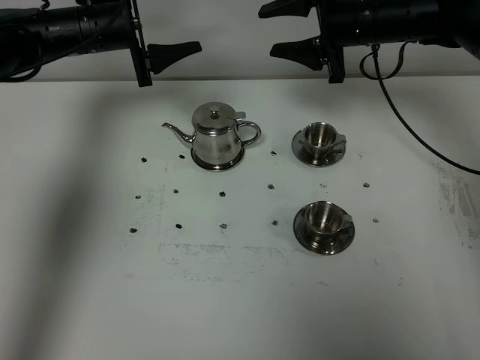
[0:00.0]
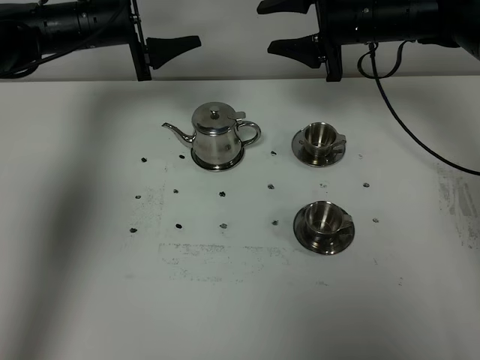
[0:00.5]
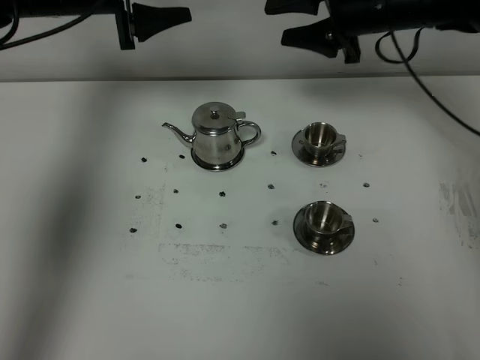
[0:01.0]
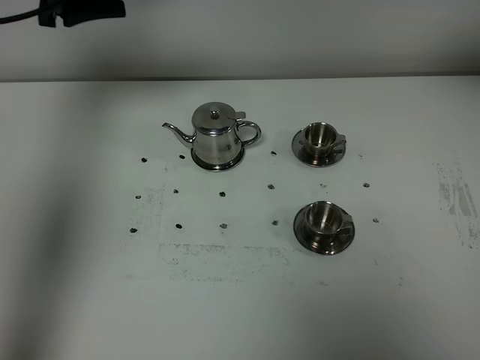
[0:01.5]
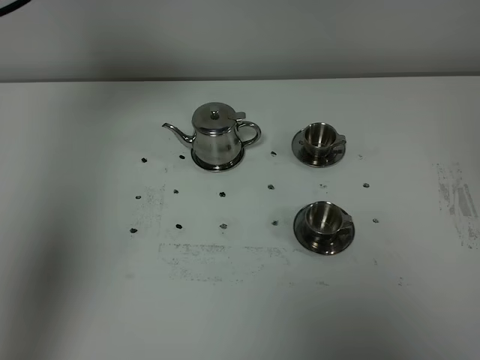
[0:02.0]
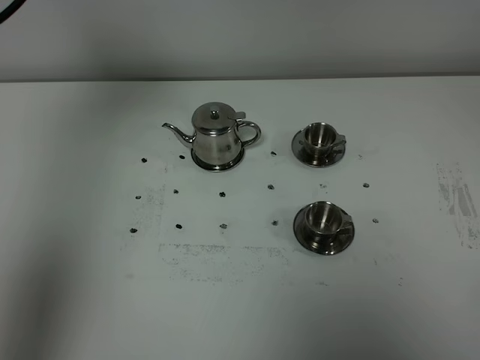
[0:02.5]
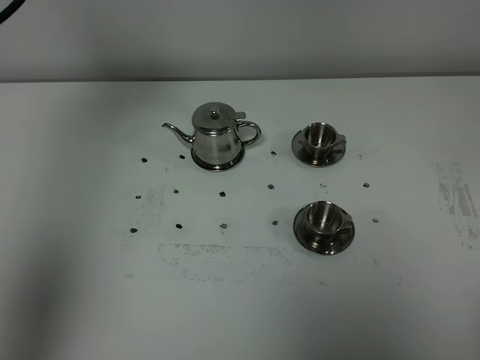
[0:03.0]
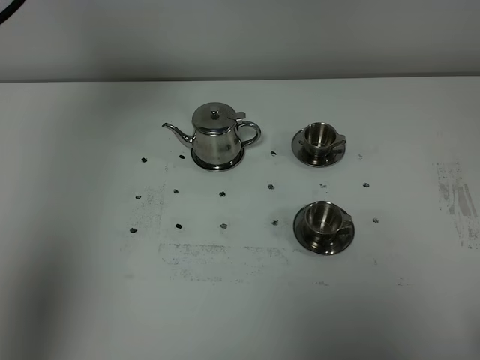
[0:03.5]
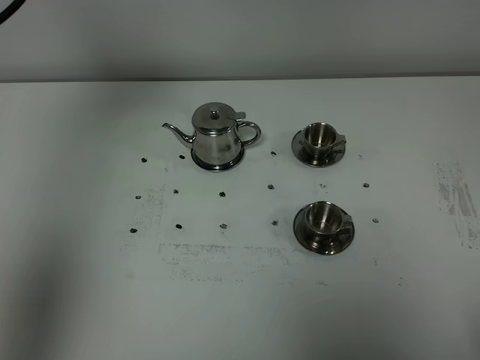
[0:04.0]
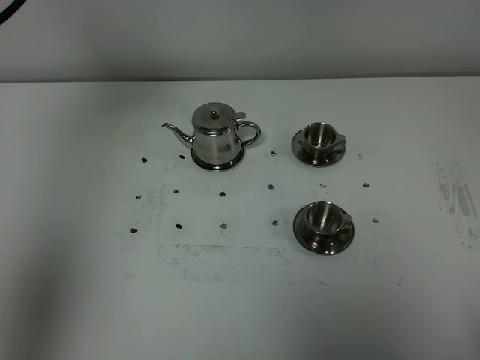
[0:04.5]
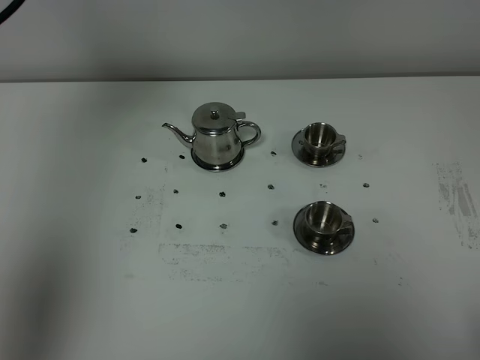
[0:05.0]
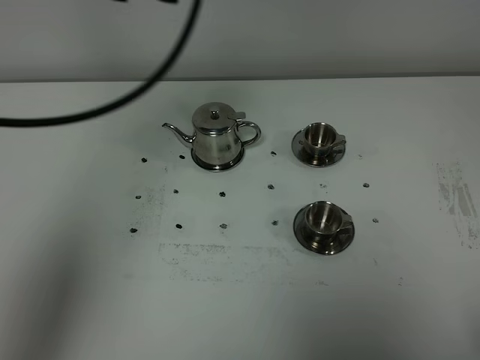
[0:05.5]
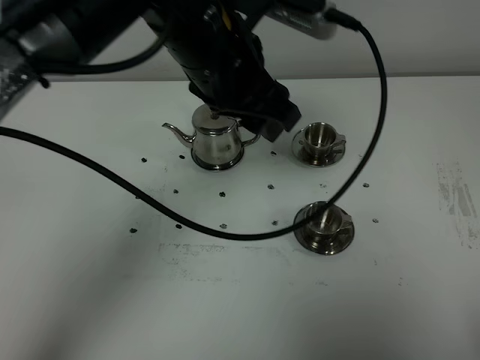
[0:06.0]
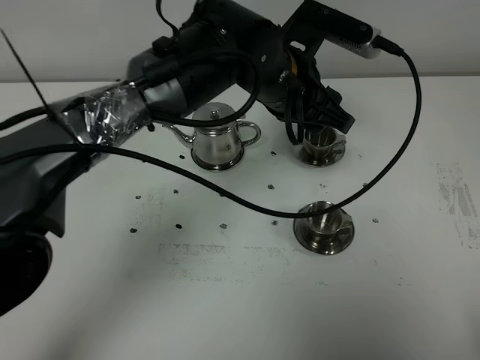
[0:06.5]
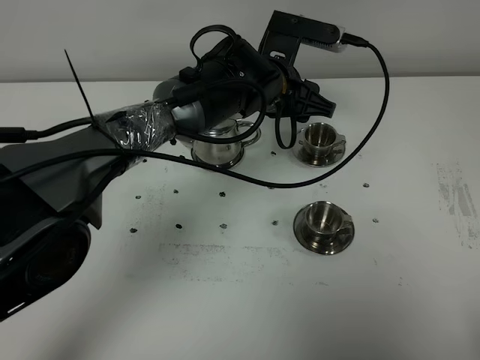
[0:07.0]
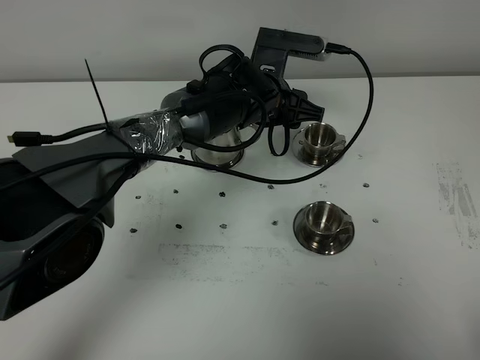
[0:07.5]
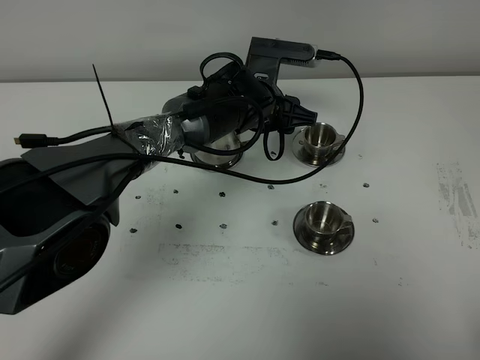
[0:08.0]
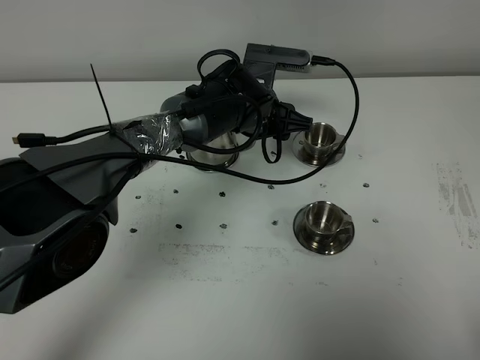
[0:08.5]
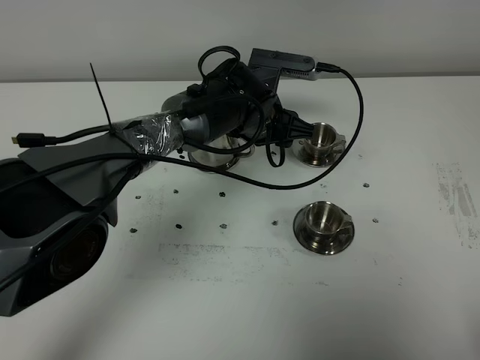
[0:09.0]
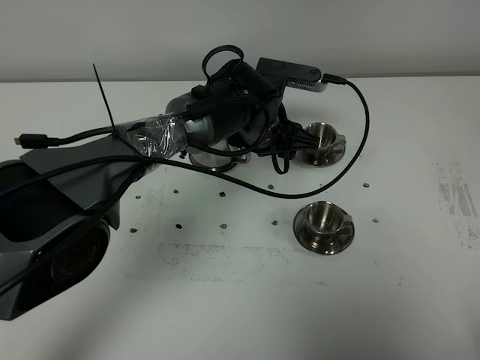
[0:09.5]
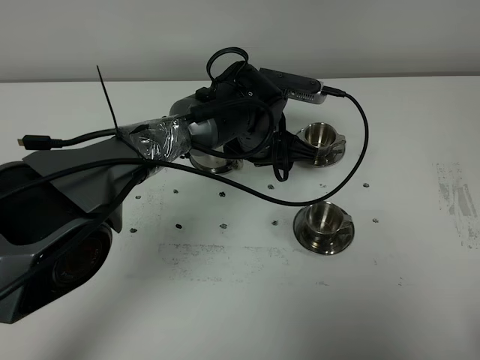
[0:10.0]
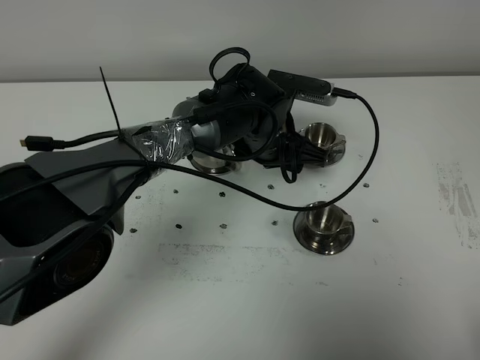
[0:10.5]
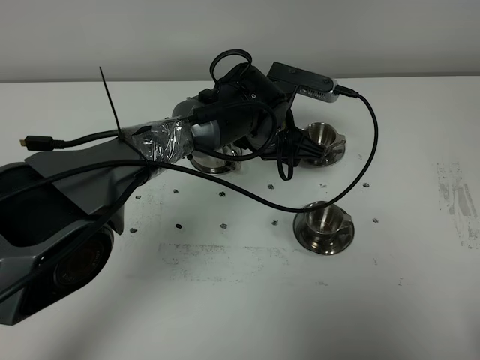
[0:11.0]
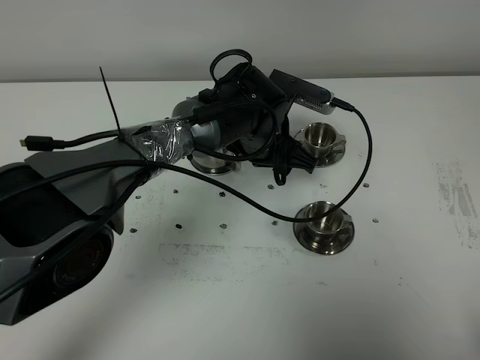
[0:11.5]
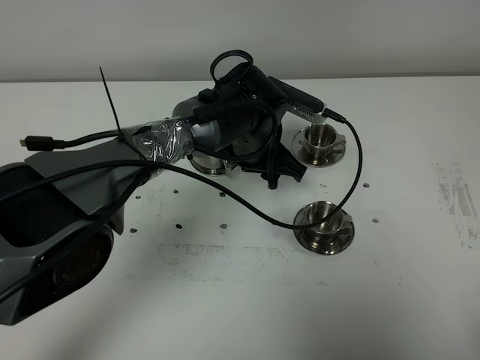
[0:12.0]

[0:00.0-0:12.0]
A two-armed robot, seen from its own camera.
Task of the whole recording: grasp the stainless steel teapot and pour the tea into the two stainless steel teacups one by one, put the stainless steel teapot back in its original place.
0:00.0 to 0:02.0: The left gripper shifts some 25 cm upward and backward. Meanwhile the right gripper travels backward and upward by roughly 50 cm.
0:04.0 to 0:06.0: The left gripper heads to the right and downward, covering roughly 30 cm.
0:06.0 to 0:08.0: The left gripper shifts some 20 cm downward and forward.
0:08.0 to 0:10.0: The grippers move only a little.
0:10.0 to 0:12.0: The grippers make only small movements.

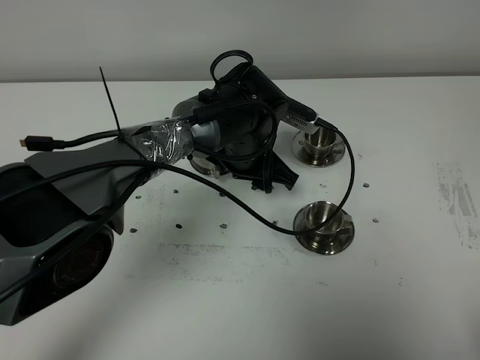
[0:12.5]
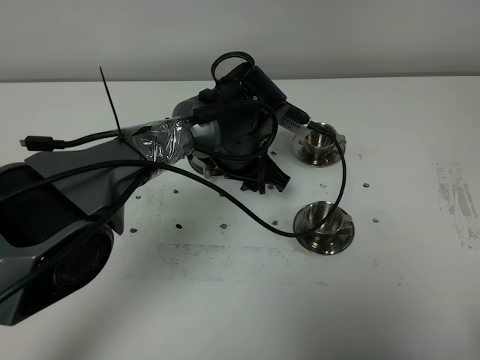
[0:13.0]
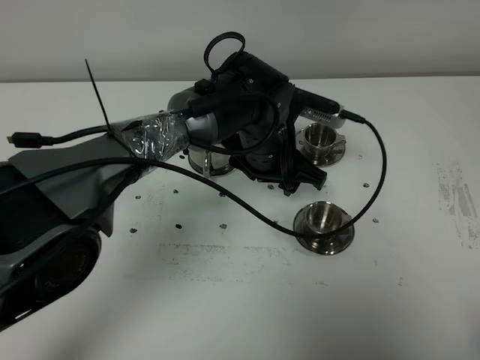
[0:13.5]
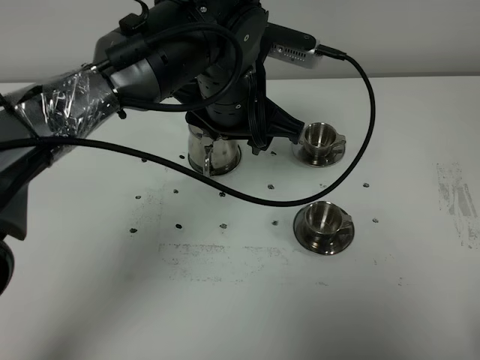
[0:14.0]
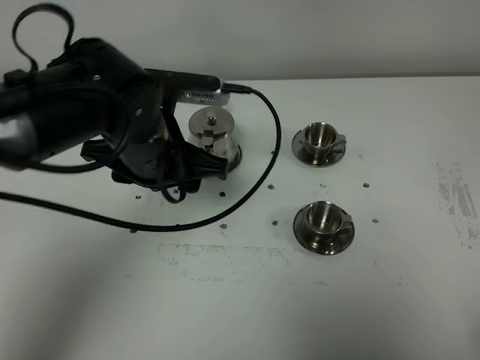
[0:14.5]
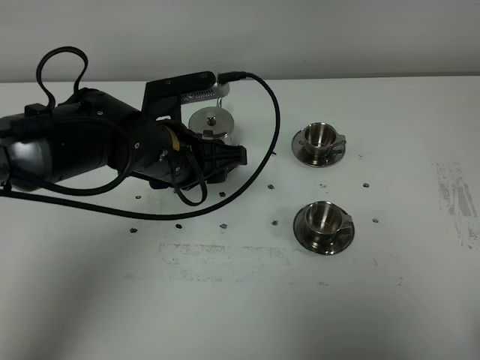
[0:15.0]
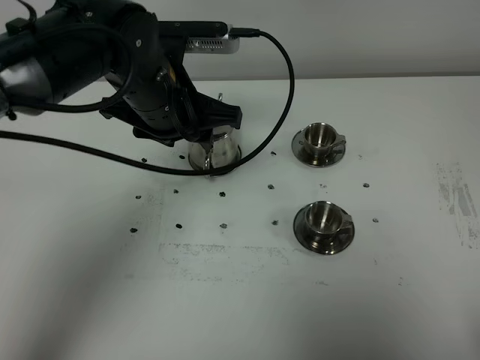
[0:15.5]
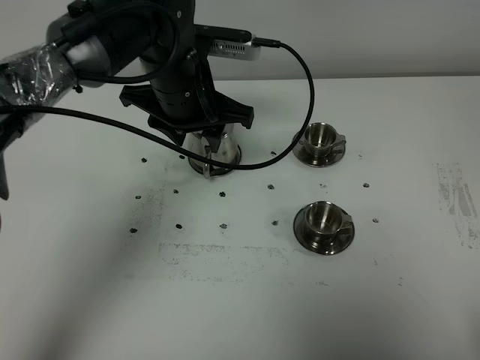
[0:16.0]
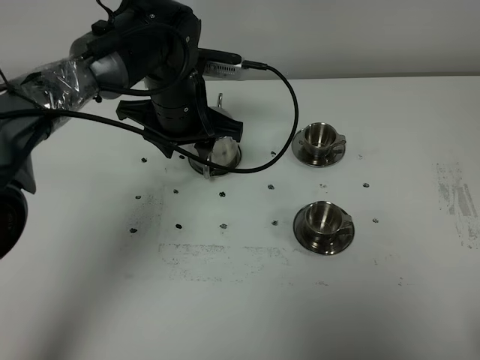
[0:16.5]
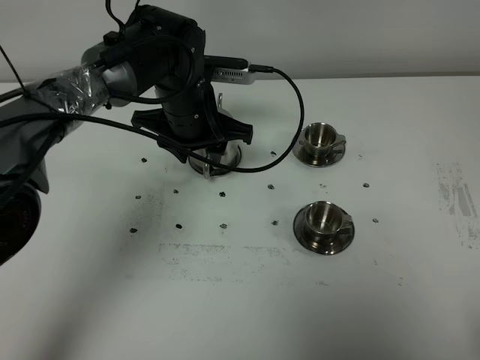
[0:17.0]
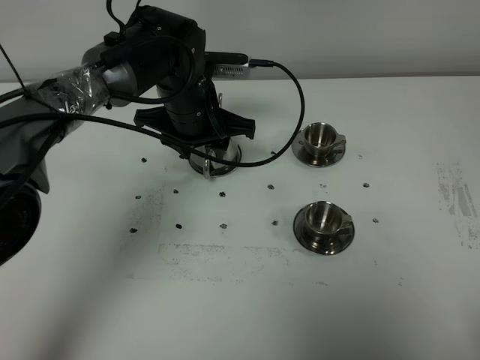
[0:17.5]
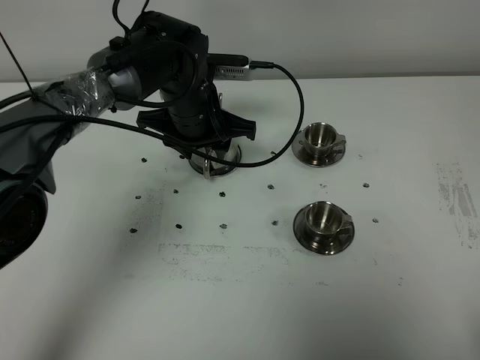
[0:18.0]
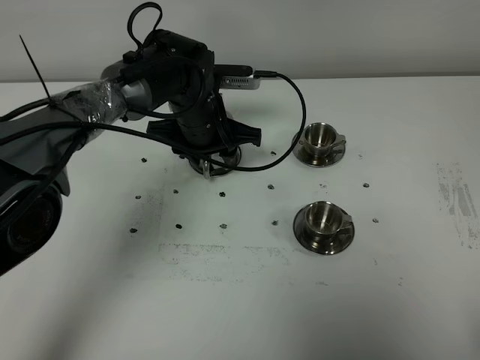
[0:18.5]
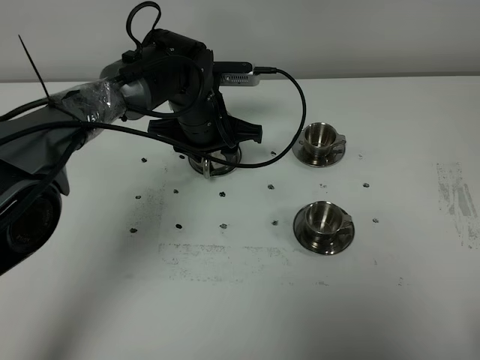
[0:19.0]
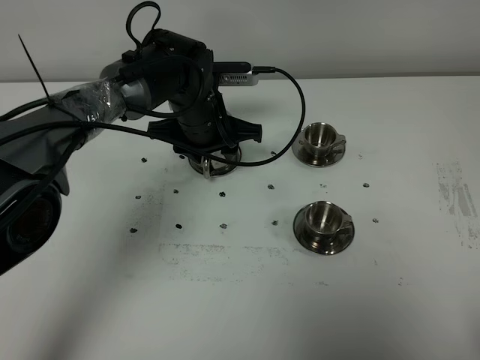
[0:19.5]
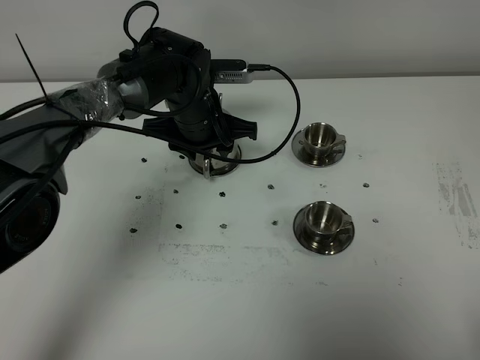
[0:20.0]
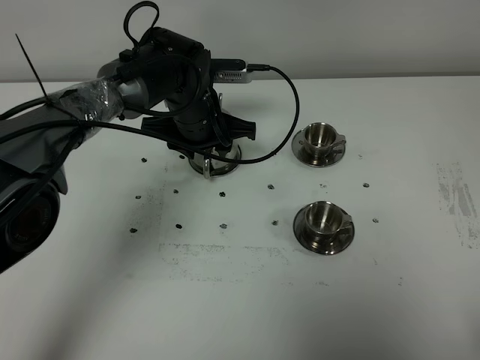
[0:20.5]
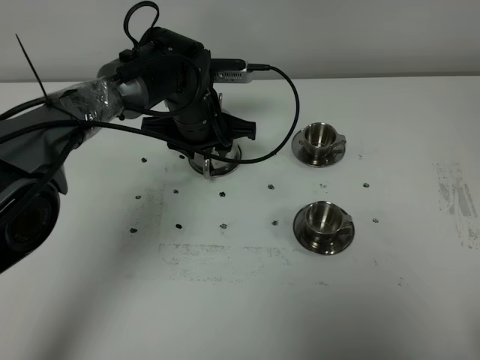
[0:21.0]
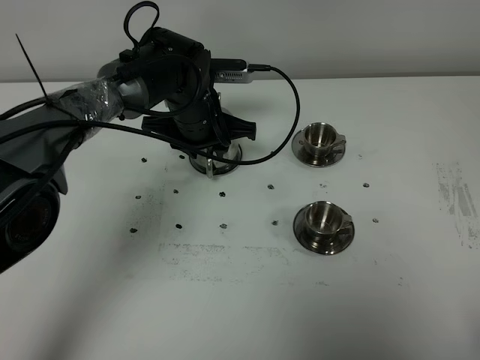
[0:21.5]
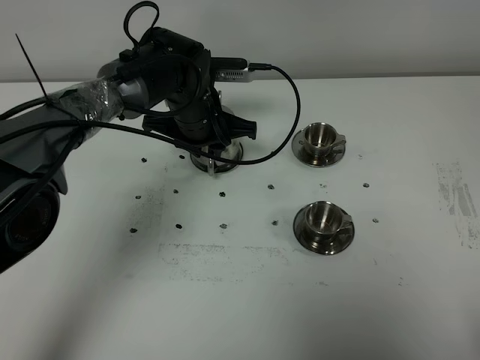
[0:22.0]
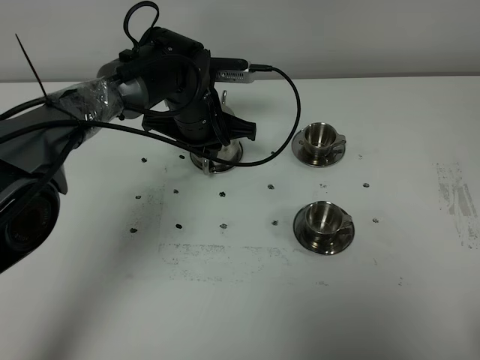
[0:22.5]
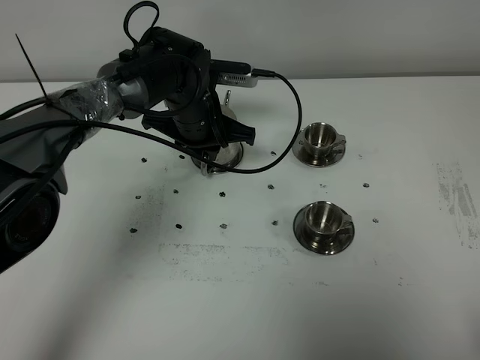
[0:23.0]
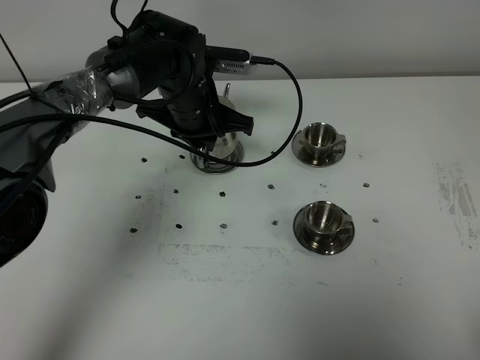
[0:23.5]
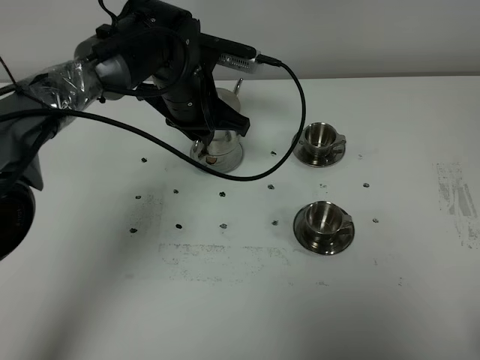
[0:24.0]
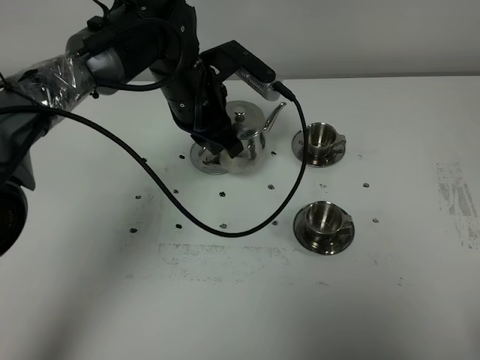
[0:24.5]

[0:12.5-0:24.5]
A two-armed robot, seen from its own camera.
Task of the whole recording: grasp the stainless steel teapot and pour the tea into the two stainless steel teacups one by one, put the stainless steel teapot back in its original place.
Step, 0:12.5 to 0:24.0: Pick up the teapot with the left gripper.
0:12.5 to 0:14.5: The left gripper goes about 15 cm to the left, upward and backward.
0:14.5 to 0:16.5: The left gripper travels forward by about 10 cm.
0:16.5 to 0:18.5: The left gripper heads downward, covering roughly 5 cm.
0:18.5 to 0:20.5: Neither gripper changes place.
0:20.5 to 0:22.5: The left gripper closes up.
0:22.5 to 0:24.5: The left gripper shifts approximately 5 cm upward.

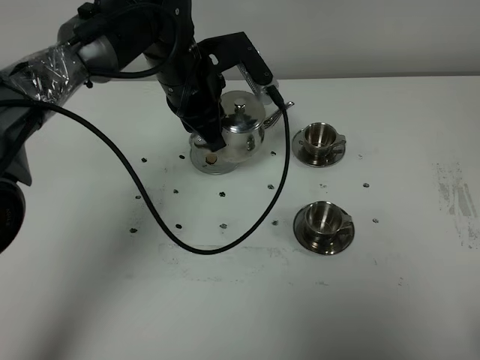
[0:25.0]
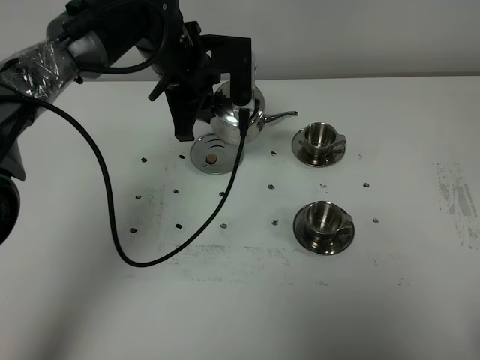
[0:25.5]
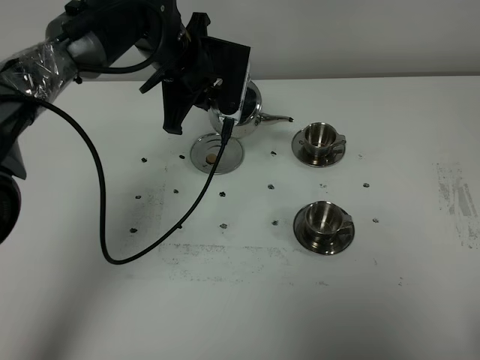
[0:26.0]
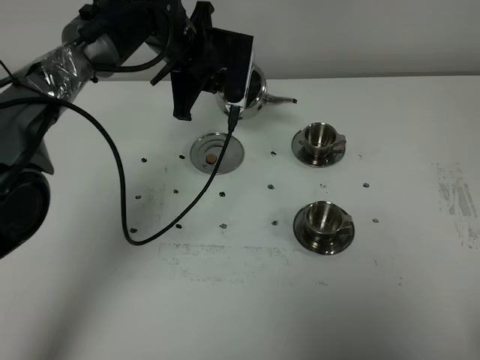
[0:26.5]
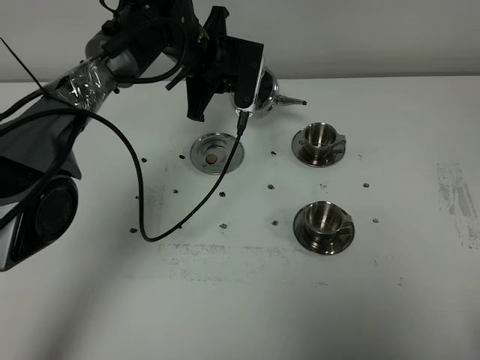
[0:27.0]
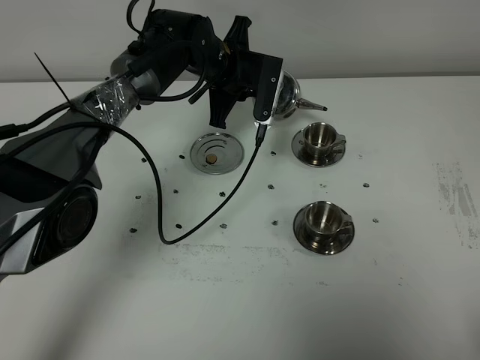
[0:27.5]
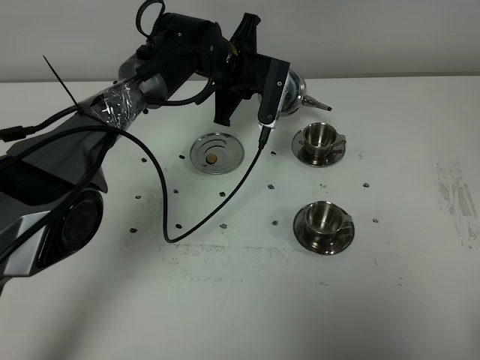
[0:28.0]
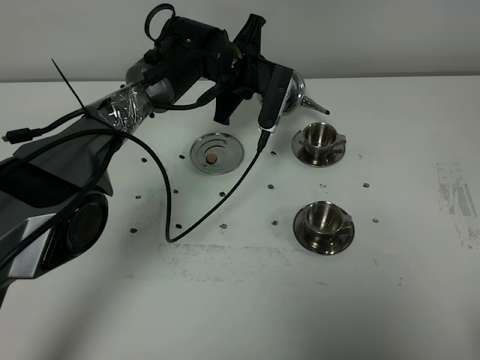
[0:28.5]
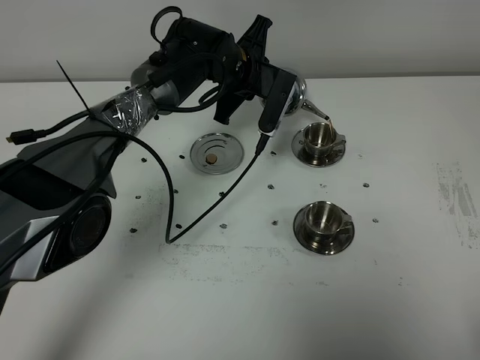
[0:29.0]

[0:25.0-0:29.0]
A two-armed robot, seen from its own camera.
Task of the whole recording: grasp the stainless steel teapot and pour the tea into the two stainless steel teacups one by one, put the stainless steel teapot back in its original place.
0:25.0 to 0:27.0: The left gripper is displaced forward by about 10 cm.
0:27.0 to 0:29.0: The left gripper ends up roughly 5 cm from where it was.
